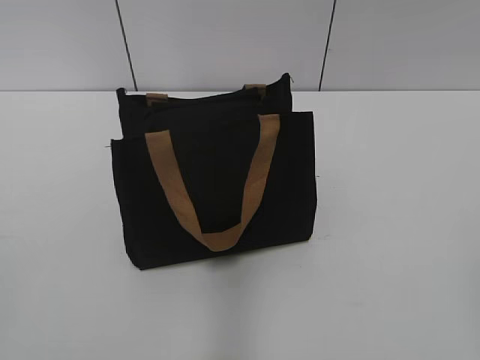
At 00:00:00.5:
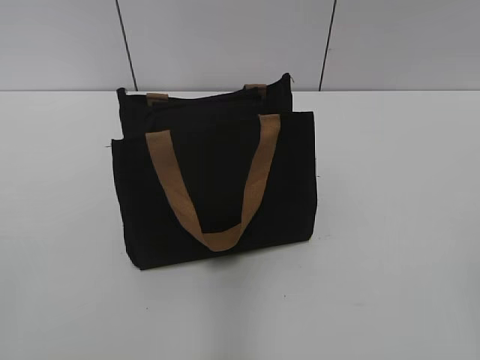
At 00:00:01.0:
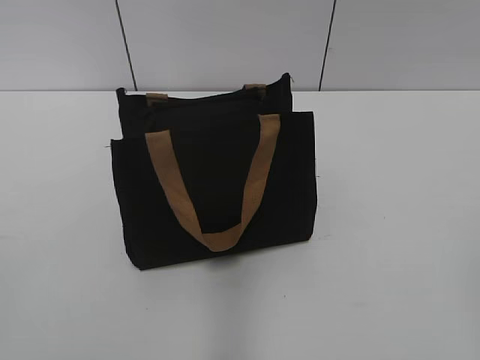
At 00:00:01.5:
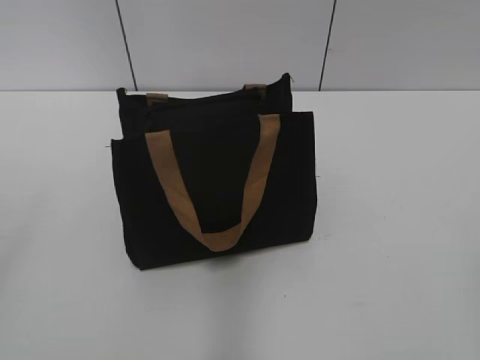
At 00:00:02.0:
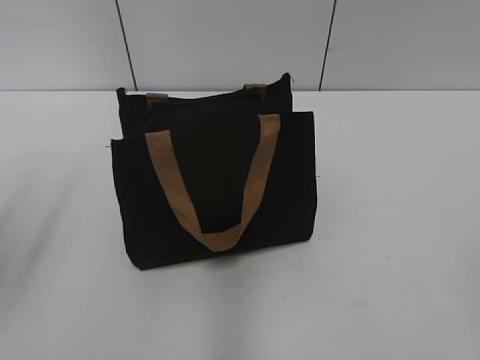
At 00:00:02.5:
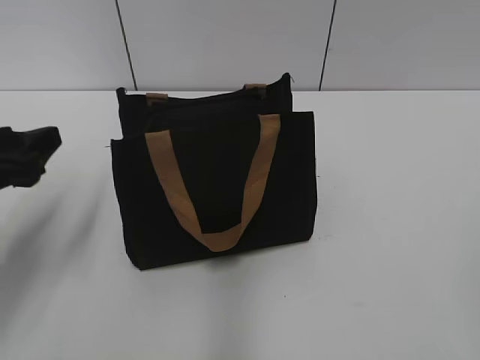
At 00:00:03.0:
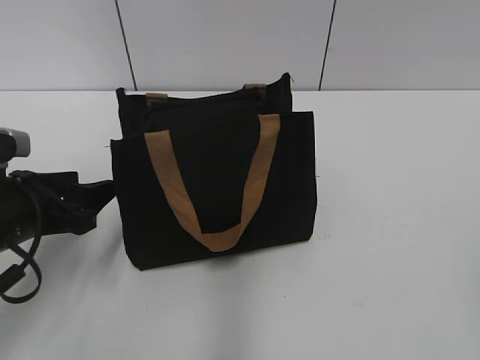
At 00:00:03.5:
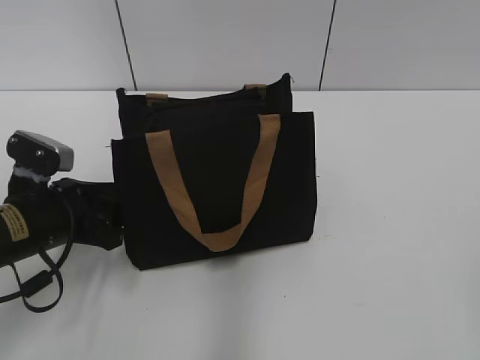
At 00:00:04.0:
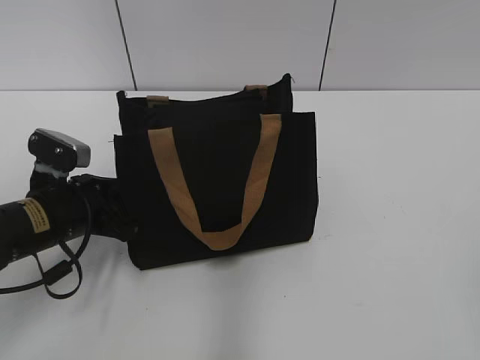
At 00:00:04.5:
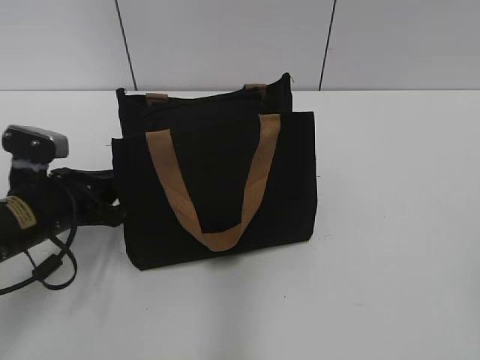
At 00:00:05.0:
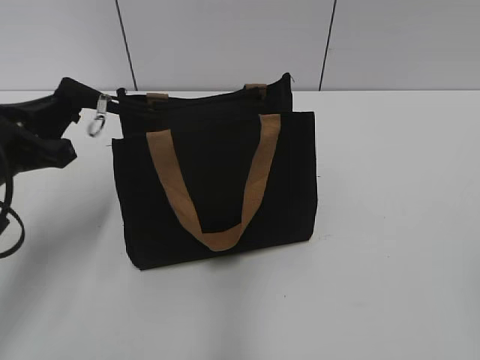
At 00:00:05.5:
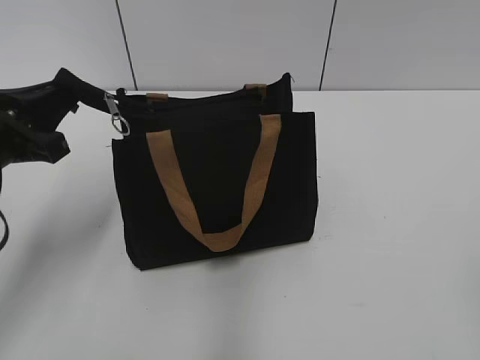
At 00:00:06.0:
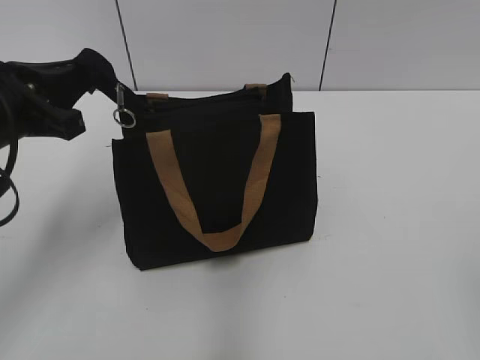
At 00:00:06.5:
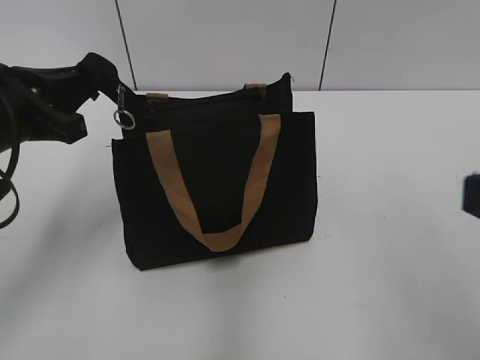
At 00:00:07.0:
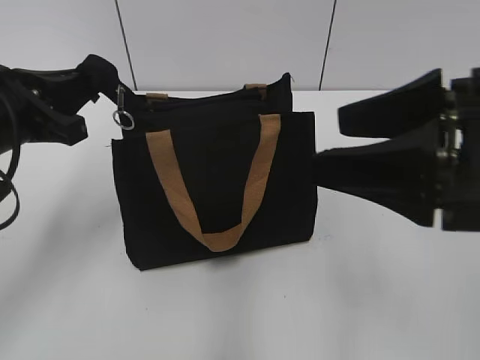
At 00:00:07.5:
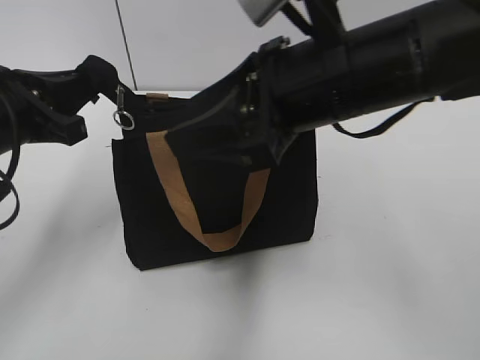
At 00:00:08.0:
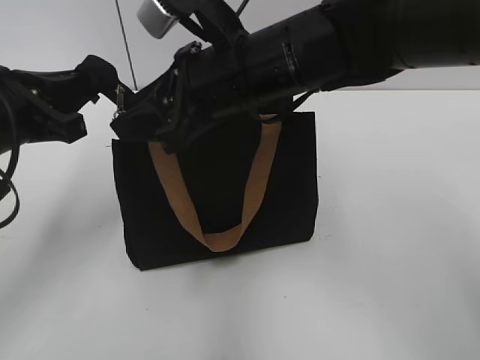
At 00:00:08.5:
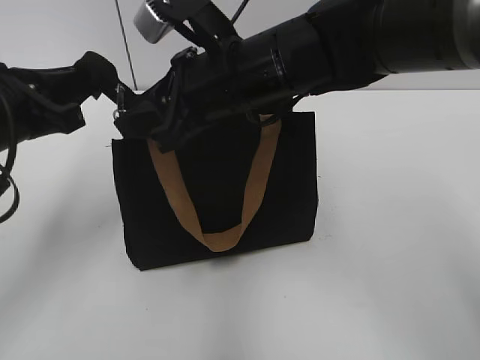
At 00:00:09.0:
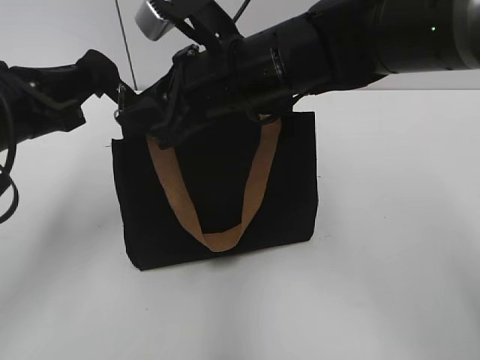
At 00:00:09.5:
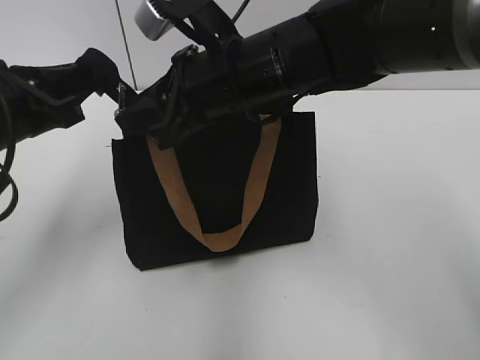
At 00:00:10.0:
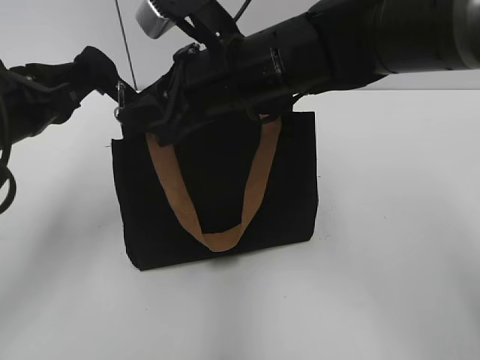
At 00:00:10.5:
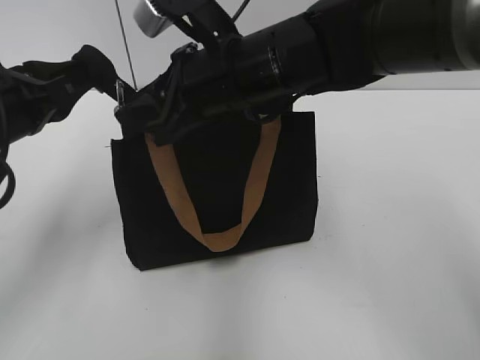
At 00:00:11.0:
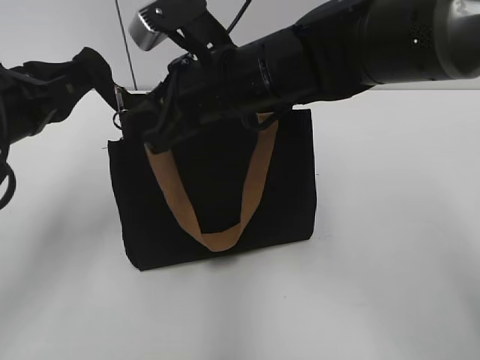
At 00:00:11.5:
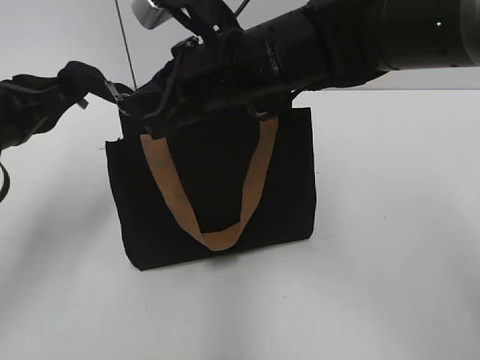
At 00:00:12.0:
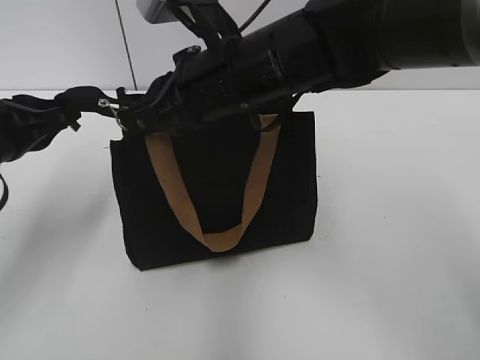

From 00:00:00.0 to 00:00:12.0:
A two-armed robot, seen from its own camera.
From 00:00:02.0 to 00:00:04.0: The left gripper heads downward, forward and to the right, covering some 25 cm, and closes its fingers.
From 00:00:04.0 to 00:00:06.0: The left gripper travels upward by approximately 15 cm, and closes.
From 00:00:06.0 to 00:00:08.0: The right gripper is displaced forward and to the left by about 40 cm, and closes its fingers.
From 00:00:08.0 to 00:00:10.0: The grippers move only a little.
From 00:00:10.0 to 00:00:12.0: The right gripper closes.

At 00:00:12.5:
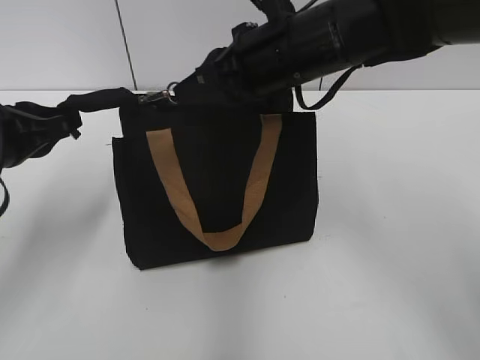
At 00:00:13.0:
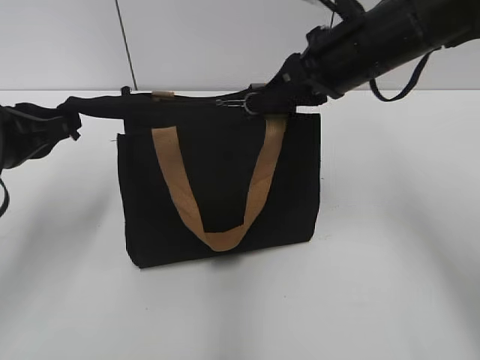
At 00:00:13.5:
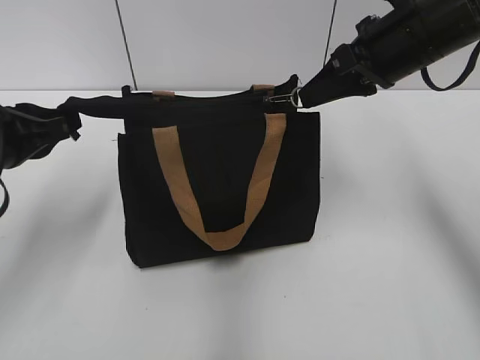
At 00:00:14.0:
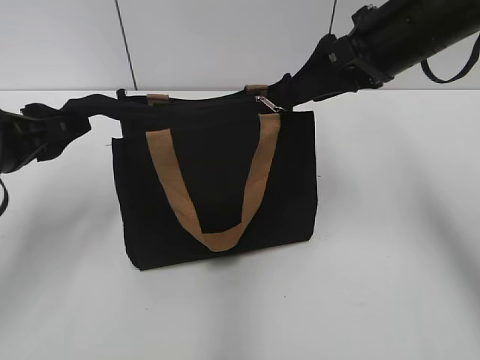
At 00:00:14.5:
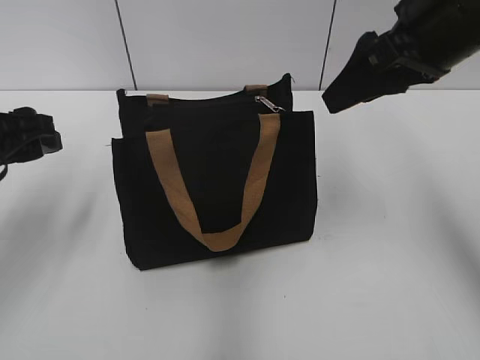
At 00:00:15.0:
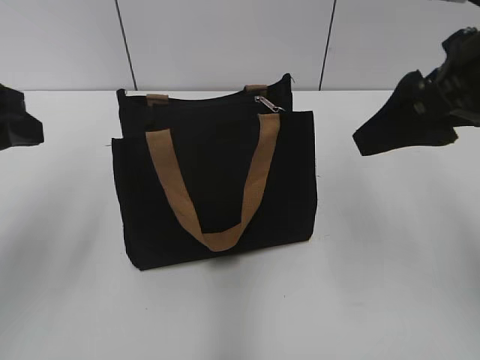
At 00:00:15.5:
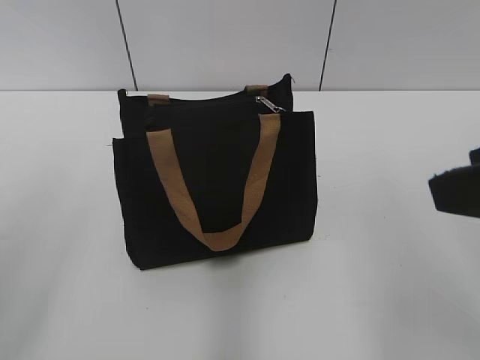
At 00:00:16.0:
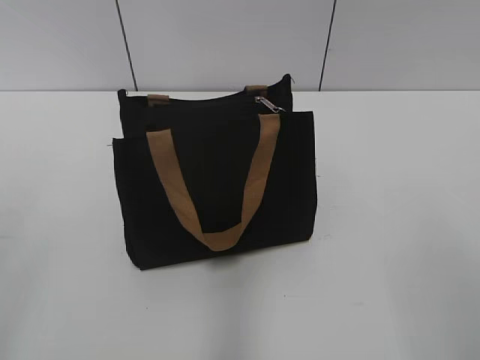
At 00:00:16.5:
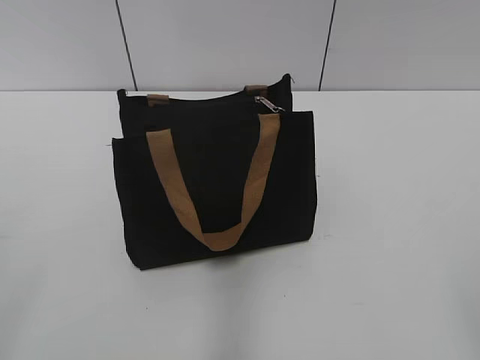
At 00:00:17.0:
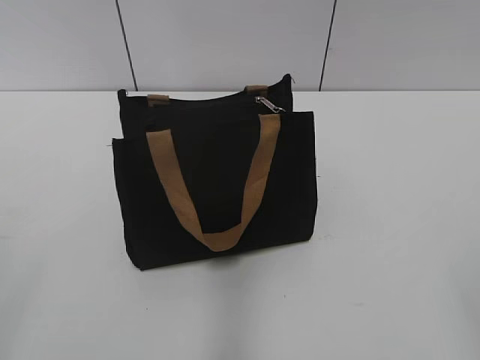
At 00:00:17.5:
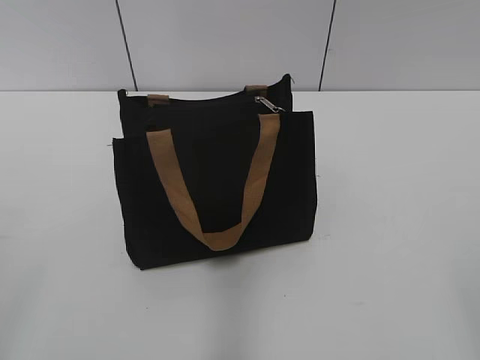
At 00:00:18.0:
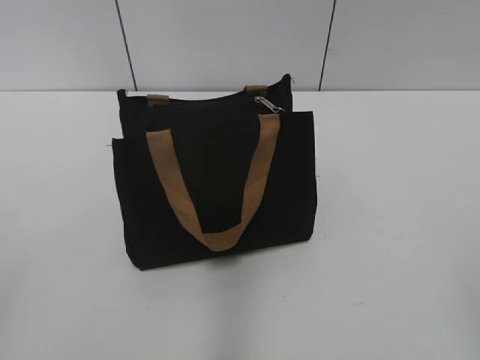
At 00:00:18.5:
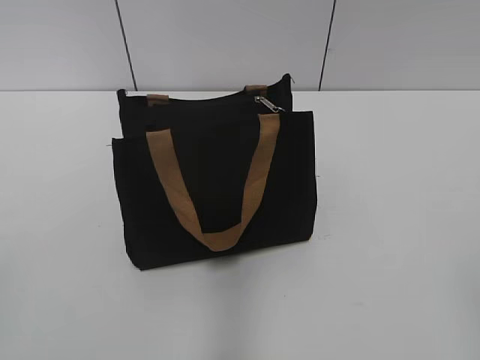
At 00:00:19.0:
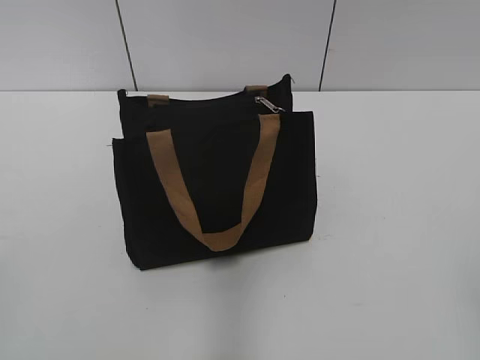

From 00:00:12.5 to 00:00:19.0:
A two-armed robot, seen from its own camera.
From 00:00:12.5 to 00:00:14.5: The left gripper opens its fingers, while the right gripper goes roughly 15 cm to the right and upward, and opens.
From 00:00:14.5 to 00:00:17.0: Both grippers travel together backward, roughly 30 cm.

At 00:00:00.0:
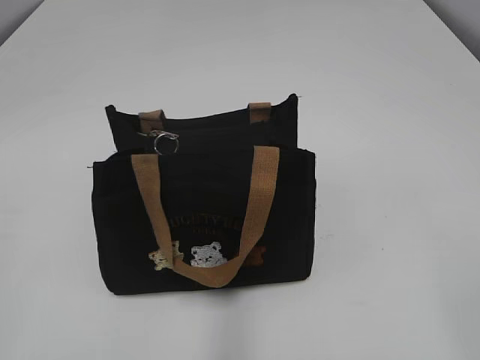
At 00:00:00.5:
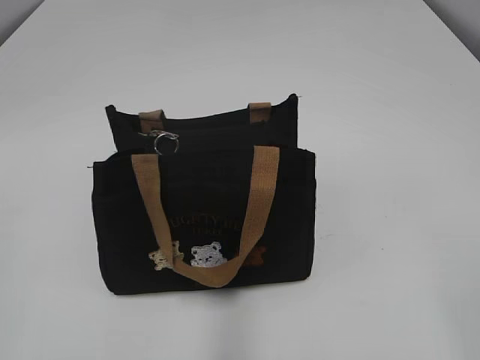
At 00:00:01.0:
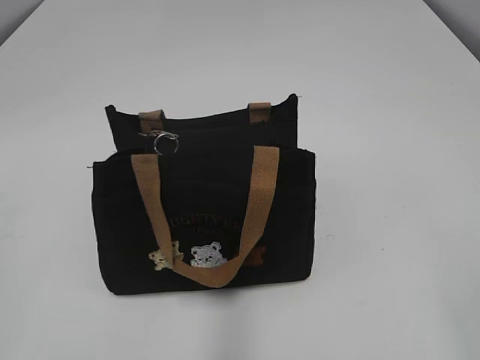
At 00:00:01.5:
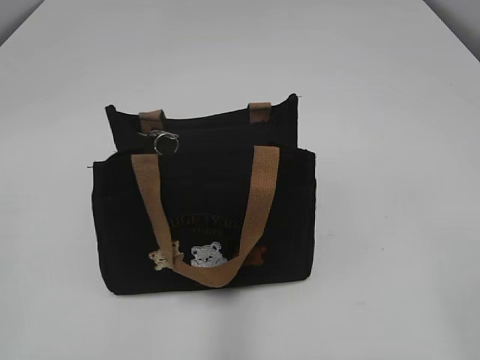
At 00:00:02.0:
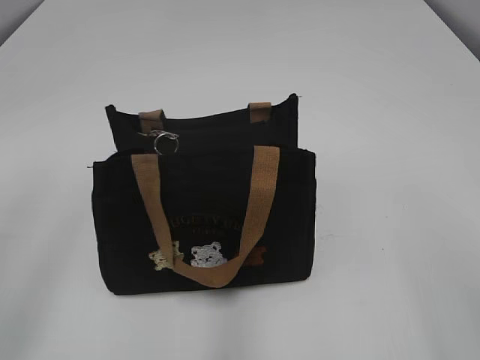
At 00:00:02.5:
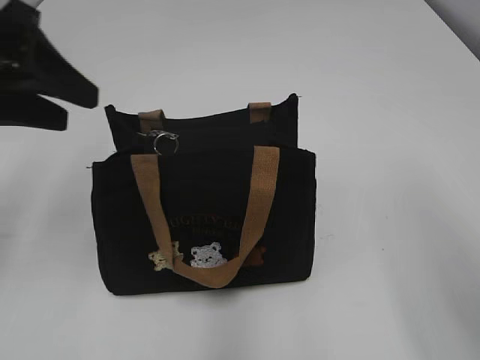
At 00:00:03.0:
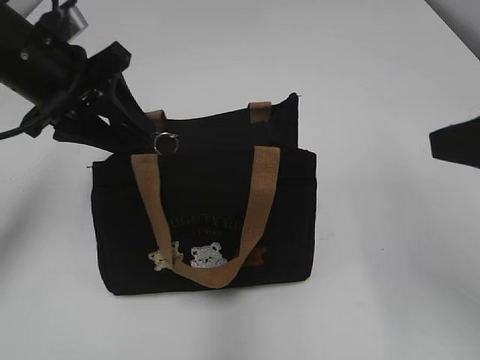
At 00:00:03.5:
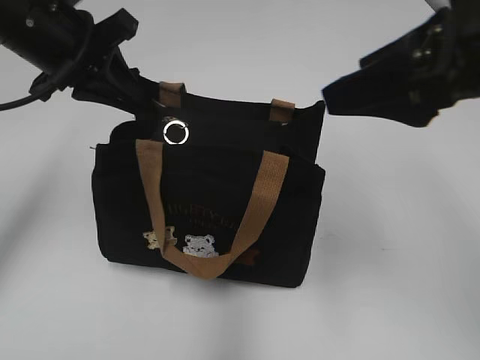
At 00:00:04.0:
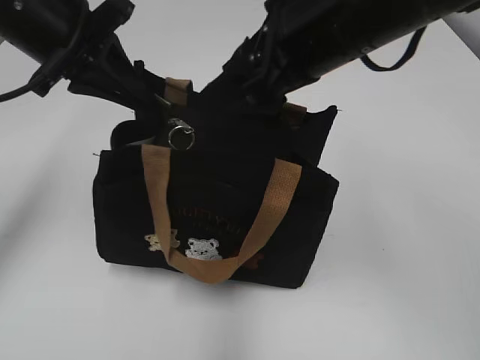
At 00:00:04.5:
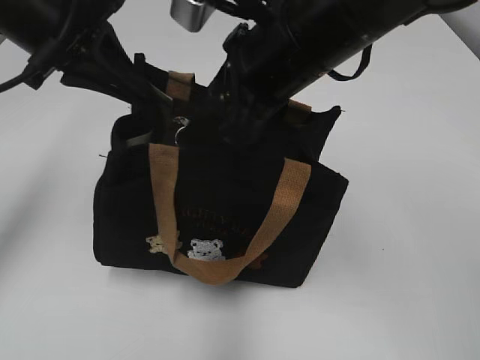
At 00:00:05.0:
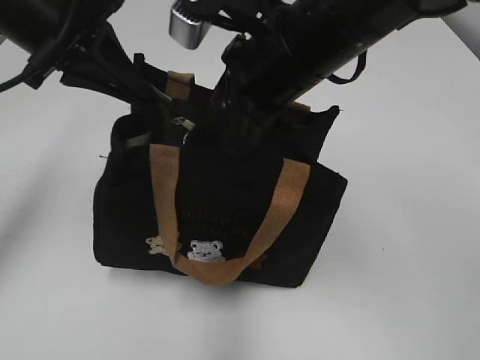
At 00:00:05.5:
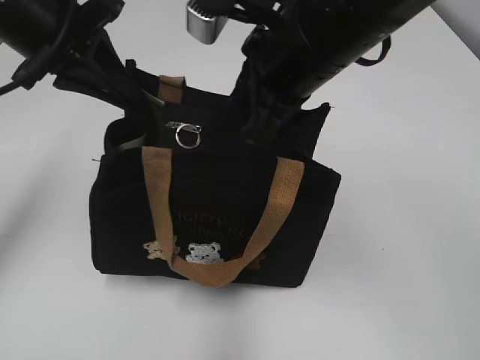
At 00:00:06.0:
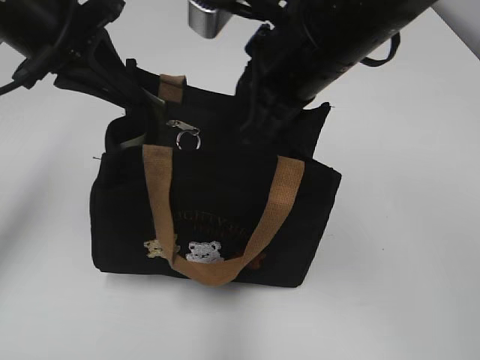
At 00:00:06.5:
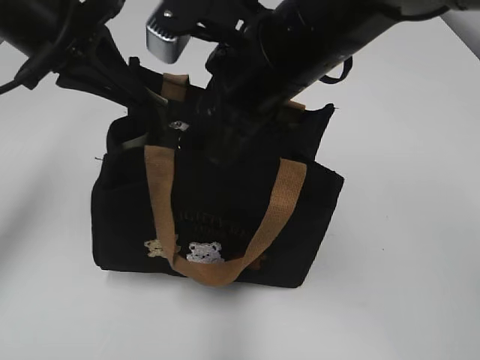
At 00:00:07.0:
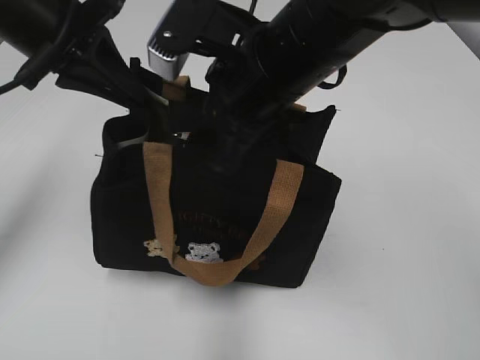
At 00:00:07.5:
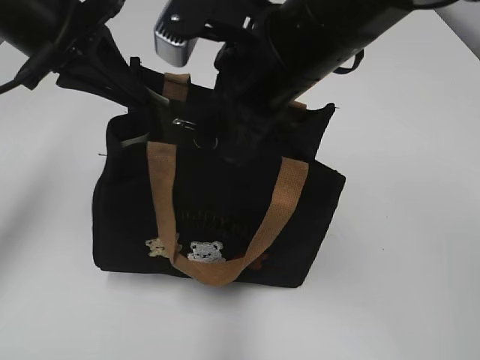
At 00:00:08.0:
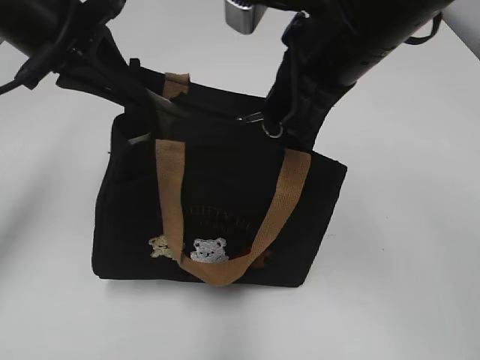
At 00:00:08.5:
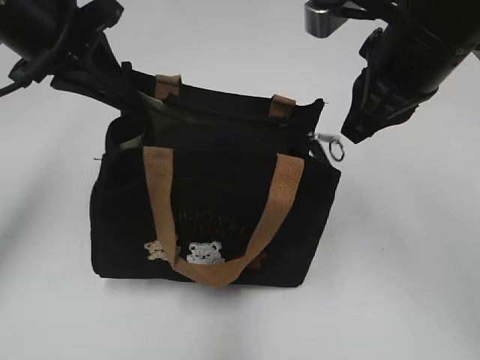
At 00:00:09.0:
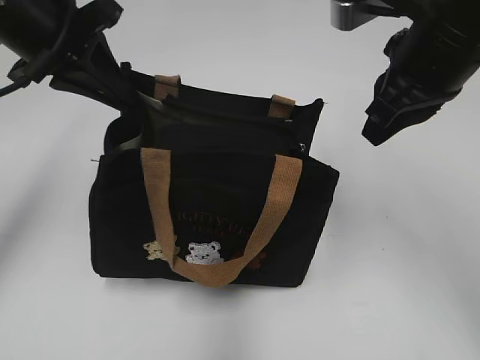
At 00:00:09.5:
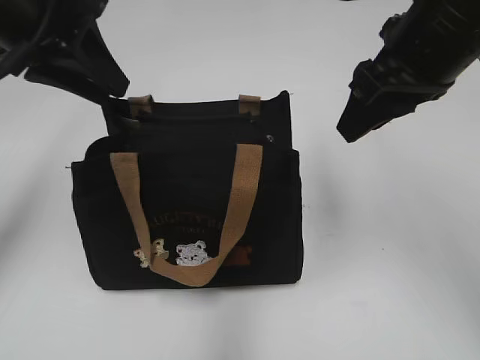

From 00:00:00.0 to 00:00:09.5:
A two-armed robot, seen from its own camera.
Step, from 00:00:00.0 to 00:00:08.5: Pull open the zipper with your right hand.
Step, from 00:00:09.0 to 00:00:09.5: Hold the bag with your left hand.
From 00:00:02.0 to 00:00:04.0: The left gripper heads forward and to the right, covering approximately 25 cm, and closes. The right gripper heads forward and to the left, covering some 35 cm.
From 00:00:04.0 to 00:00:05.5: The right gripper closes.
From 00:00:05.5 to 00:00:07.5: The right gripper opens, then closes again.
From 00:00:07.5 to 00:00:09.5: The left gripper opens its fingers. Meanwhile the right gripper heads to the right, covering about 10 cm, and opens.
